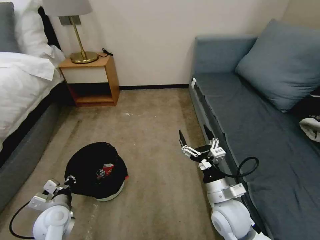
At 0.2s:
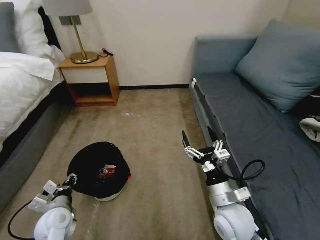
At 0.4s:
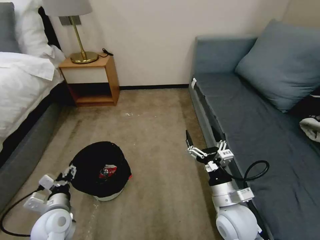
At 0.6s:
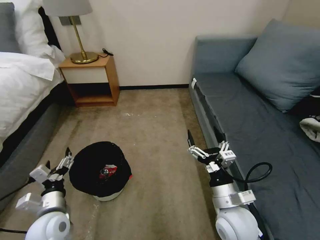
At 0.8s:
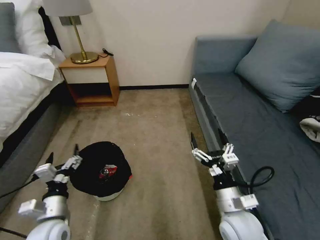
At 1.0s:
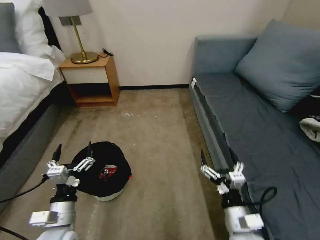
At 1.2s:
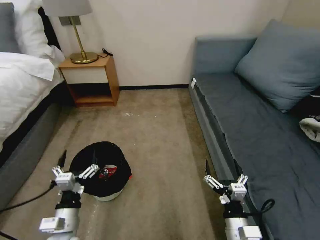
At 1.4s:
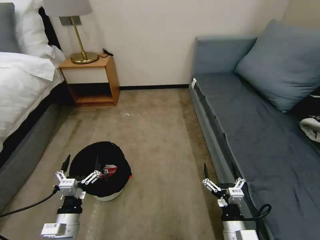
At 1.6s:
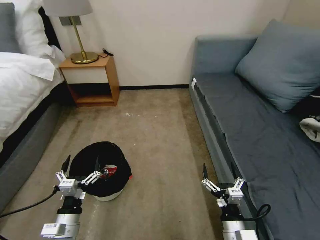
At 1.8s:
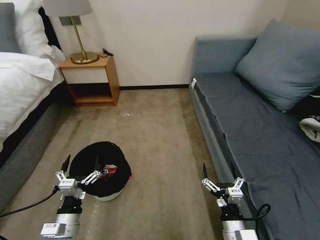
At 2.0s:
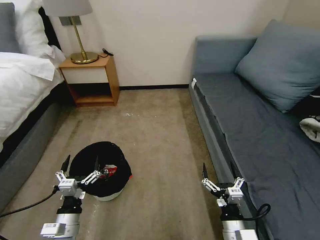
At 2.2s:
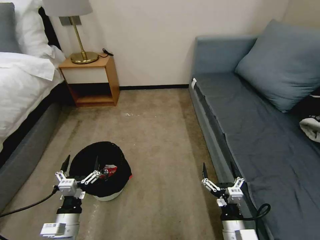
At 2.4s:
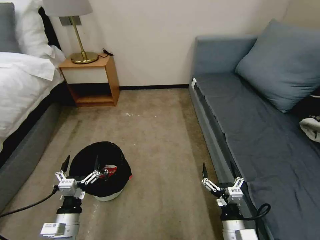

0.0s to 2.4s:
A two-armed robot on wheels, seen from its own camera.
Task of the whole recording: Pick up the trash bin, then pick up the garbage on the floor and place it into the trash bin.
0.0s to 1.2s: The left gripper travels to the right and backward by about 10 cm, and opens its fingers; the right gripper shifts approximately 10 cm backward.
1.2s to 2.4s: The grippers stay close to where they were, moving slightly.
